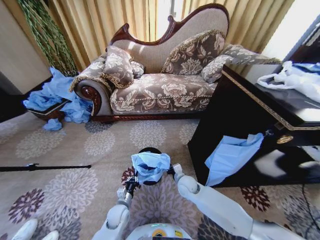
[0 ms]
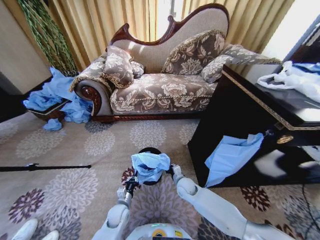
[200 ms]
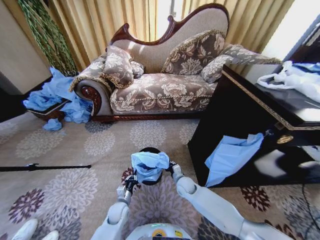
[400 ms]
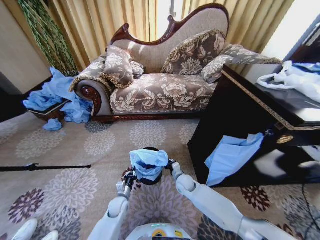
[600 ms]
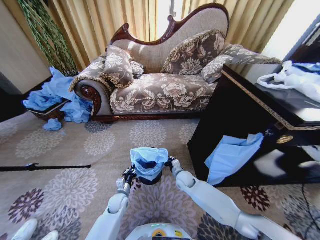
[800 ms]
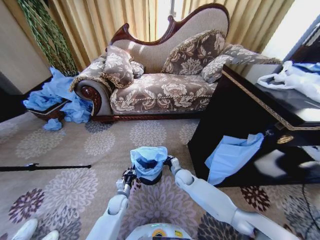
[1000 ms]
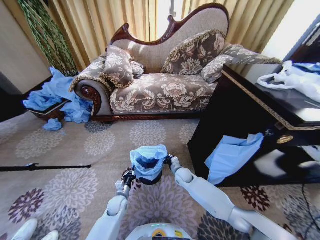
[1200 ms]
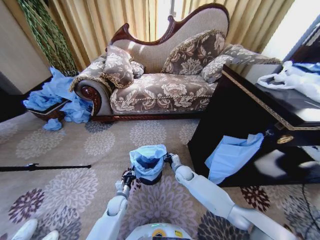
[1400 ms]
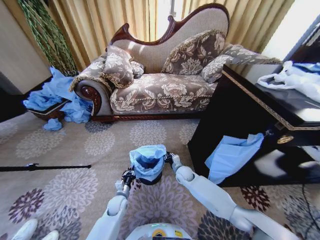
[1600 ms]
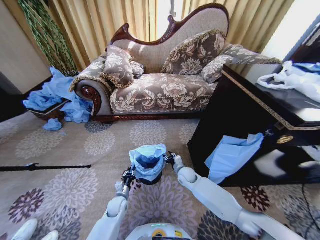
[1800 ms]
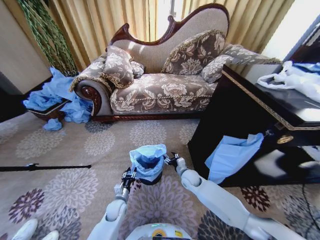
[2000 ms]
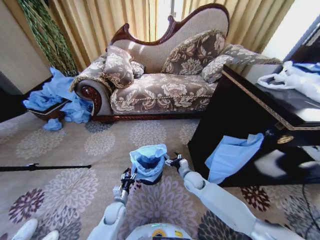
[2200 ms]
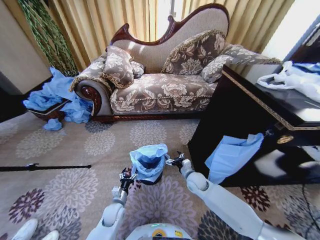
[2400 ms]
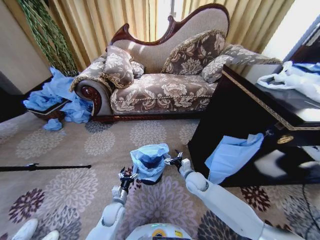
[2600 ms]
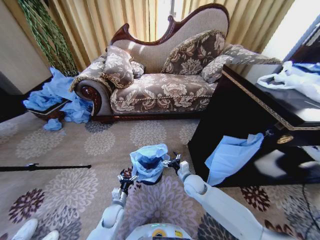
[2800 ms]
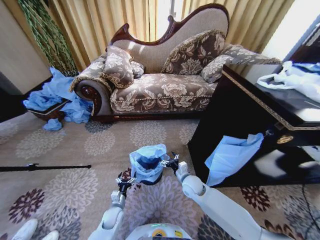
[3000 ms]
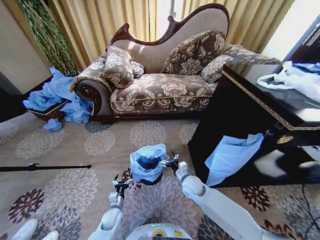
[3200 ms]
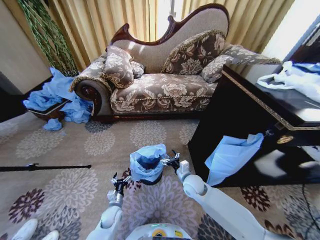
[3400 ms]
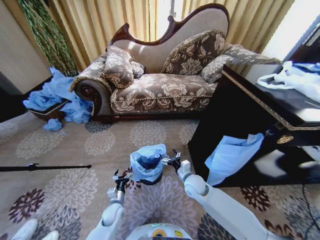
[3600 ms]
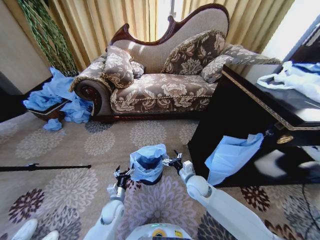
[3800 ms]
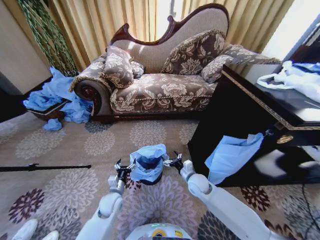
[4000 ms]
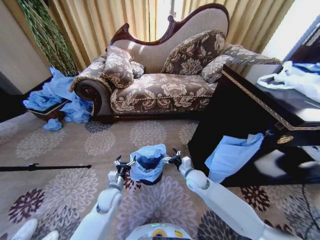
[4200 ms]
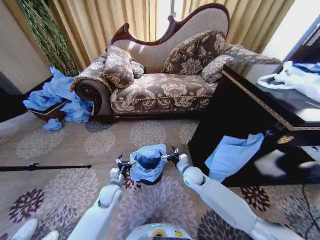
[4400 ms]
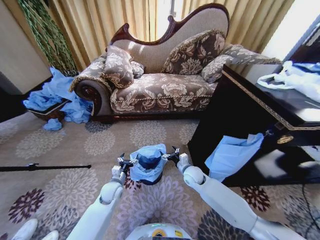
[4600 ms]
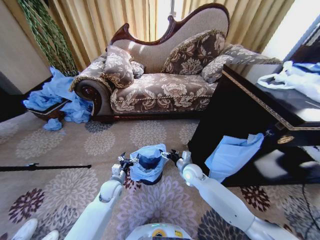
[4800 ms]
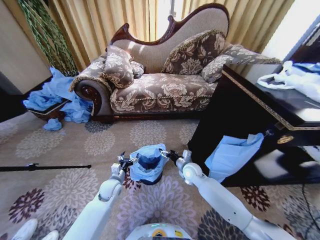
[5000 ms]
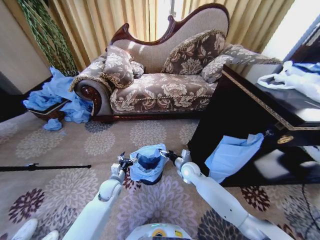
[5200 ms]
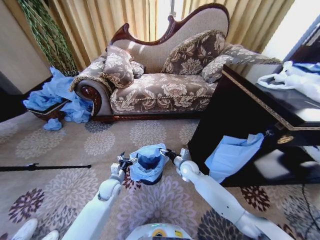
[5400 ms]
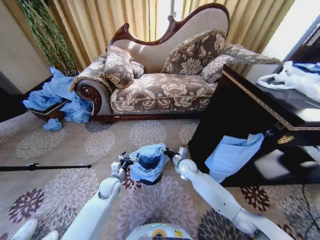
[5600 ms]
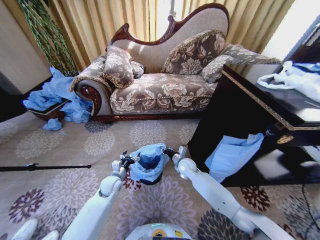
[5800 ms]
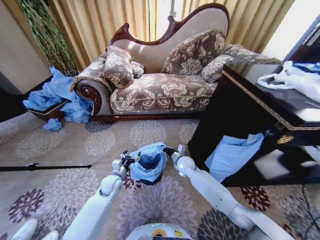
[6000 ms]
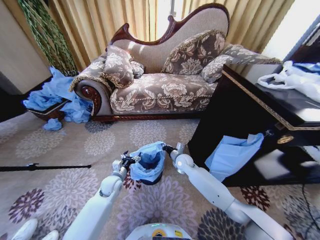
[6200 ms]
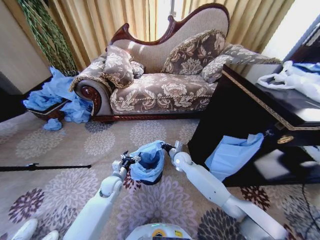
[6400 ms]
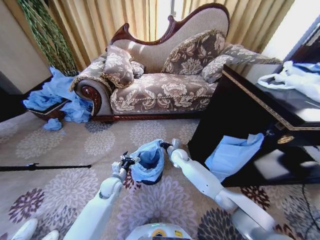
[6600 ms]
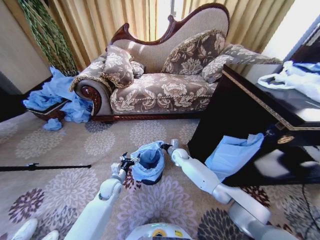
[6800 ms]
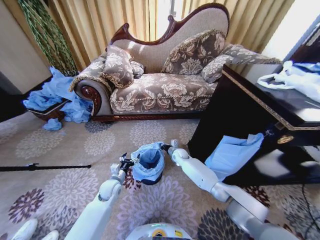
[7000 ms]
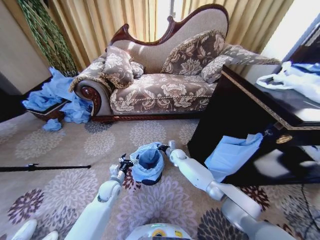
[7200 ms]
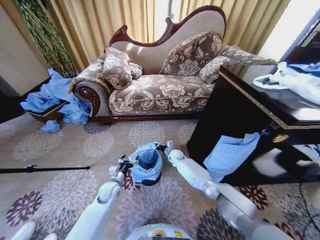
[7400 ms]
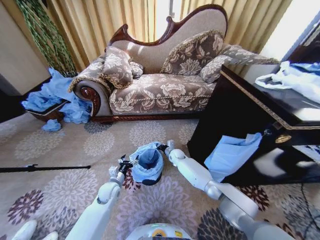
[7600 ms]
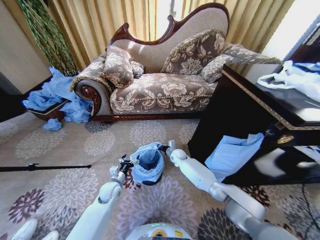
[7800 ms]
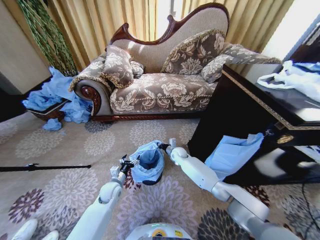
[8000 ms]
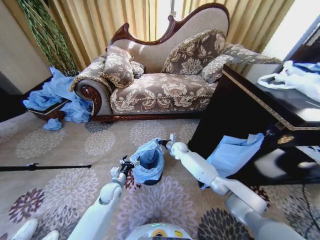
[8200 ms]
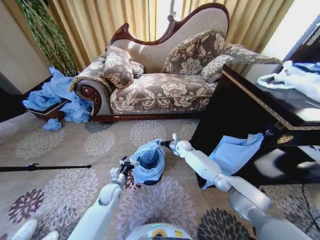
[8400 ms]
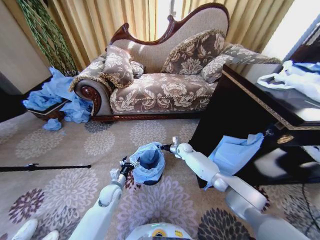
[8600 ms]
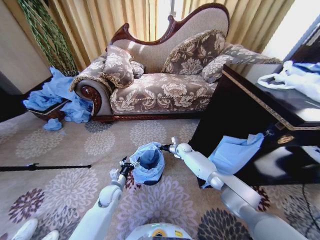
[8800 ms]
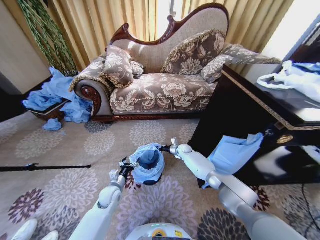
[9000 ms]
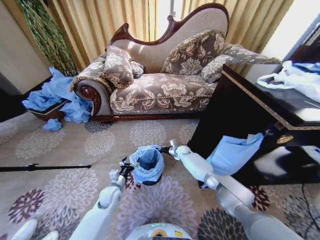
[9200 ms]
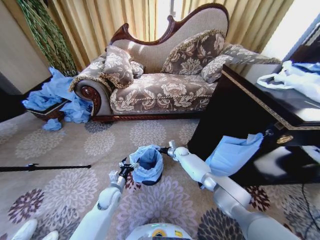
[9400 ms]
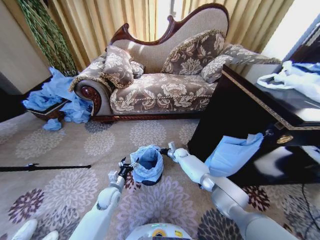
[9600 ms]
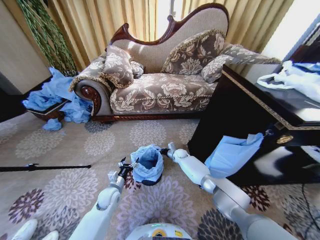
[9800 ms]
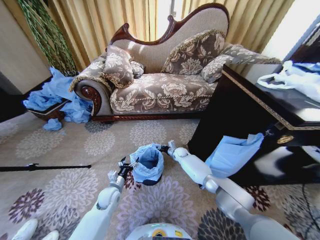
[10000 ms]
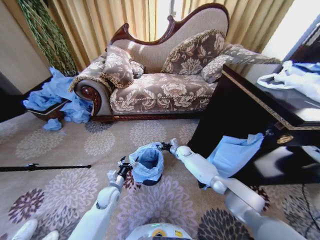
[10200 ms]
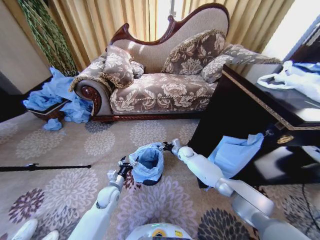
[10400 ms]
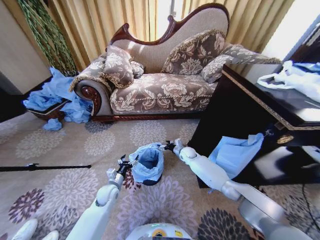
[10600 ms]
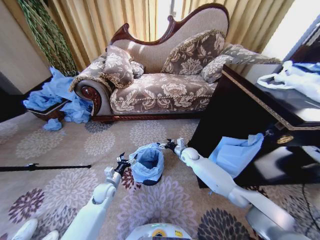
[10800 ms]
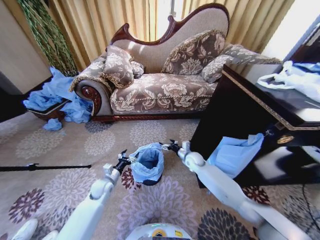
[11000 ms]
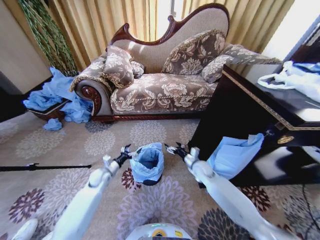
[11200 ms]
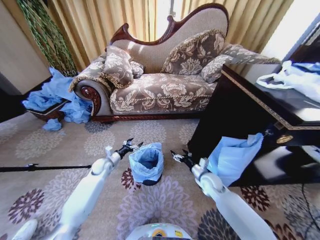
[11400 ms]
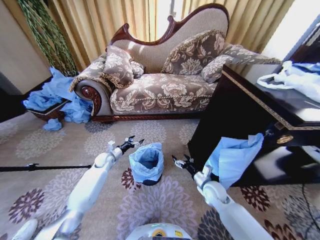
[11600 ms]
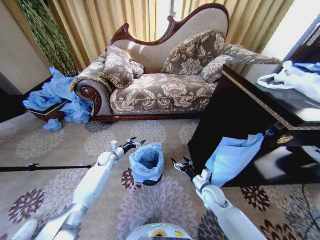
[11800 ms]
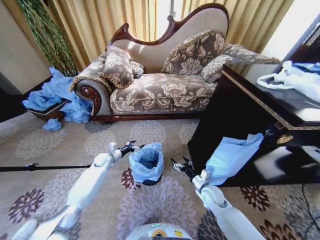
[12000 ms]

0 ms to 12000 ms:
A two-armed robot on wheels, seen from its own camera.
Task of the whole recording: Place a garbage bag over the trash bin.
0 ms to 1600 ms: The right gripper heads forward, covering approximately 5 cm. Meanwhile the left gripper ends up about 5 cm from where it was.
1600 ms to 3000 ms: The left gripper moves roughly 5 cm, and opens up. Meanwhile the right gripper heads backward, covering approximately 10 cm, and opens its fingers.
3000 ms to 4400 ms: The left gripper shifts approximately 15 cm upward and forward.
4400 ms to 6000 ms: The right gripper moves forward, roughly 5 cm, and closes up.
6000 ms to 7600 ms: The right gripper goes approximately 10 cm forward and downward.
7600 ms to 9000 ms: The right gripper travels to the right by approximately 5 cm.
9000 ms to 10400 ms: The right gripper opens.
10400 ms to 12000 ms: The left gripper heads forward and to the left, covering roughly 20 cm; the right gripper travels backward by roughly 25 cm, and opens up.

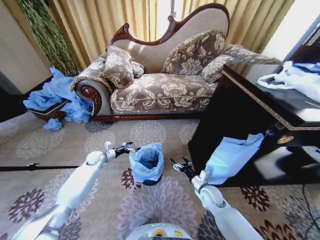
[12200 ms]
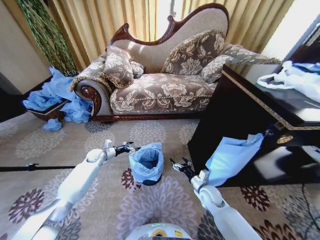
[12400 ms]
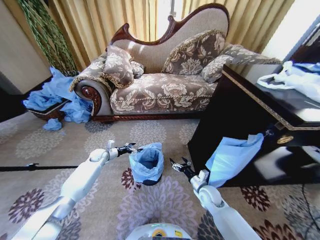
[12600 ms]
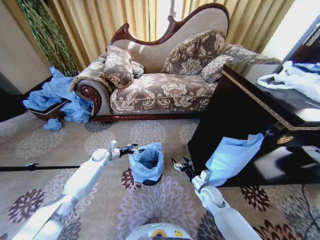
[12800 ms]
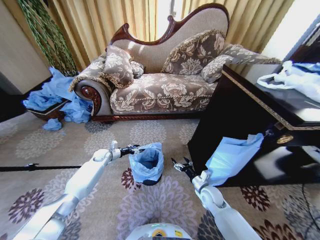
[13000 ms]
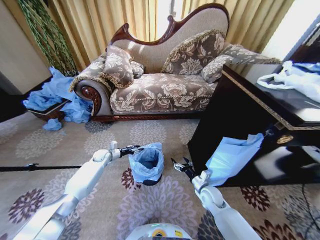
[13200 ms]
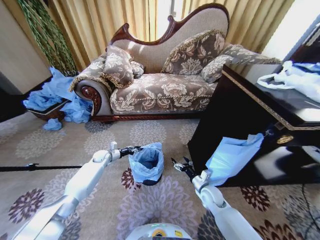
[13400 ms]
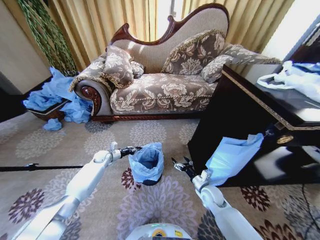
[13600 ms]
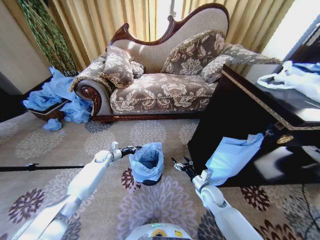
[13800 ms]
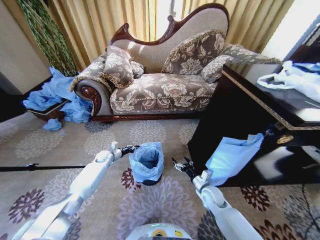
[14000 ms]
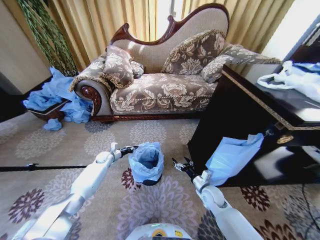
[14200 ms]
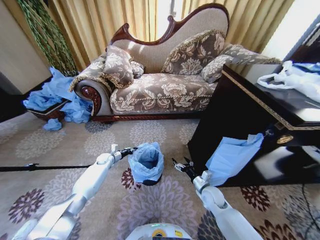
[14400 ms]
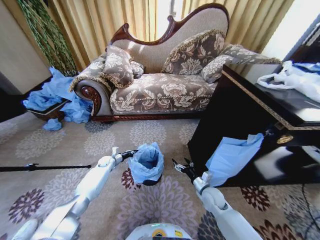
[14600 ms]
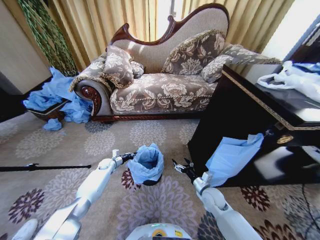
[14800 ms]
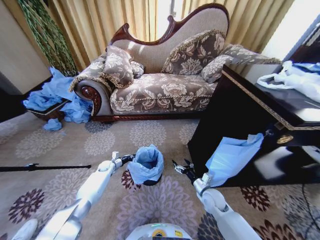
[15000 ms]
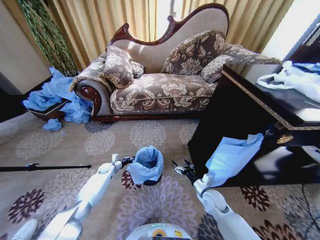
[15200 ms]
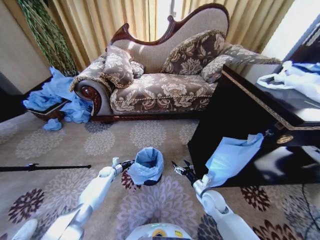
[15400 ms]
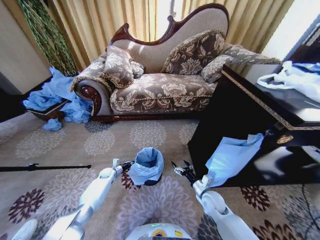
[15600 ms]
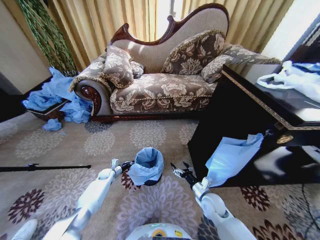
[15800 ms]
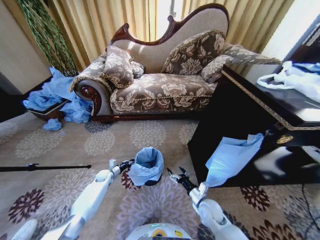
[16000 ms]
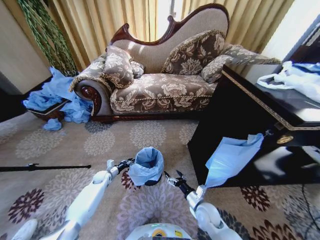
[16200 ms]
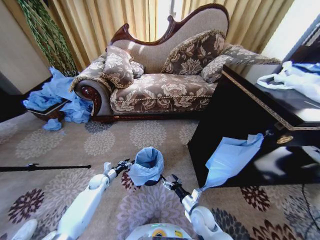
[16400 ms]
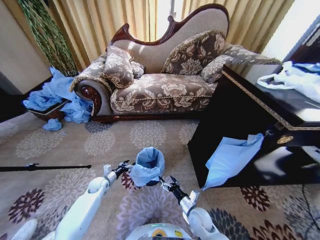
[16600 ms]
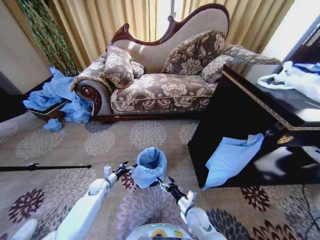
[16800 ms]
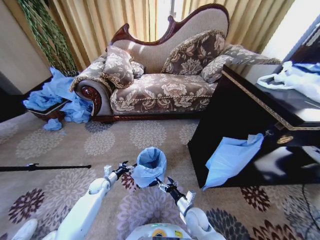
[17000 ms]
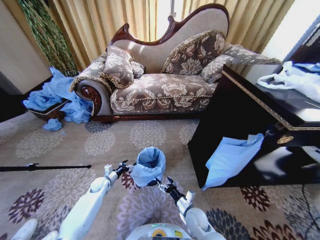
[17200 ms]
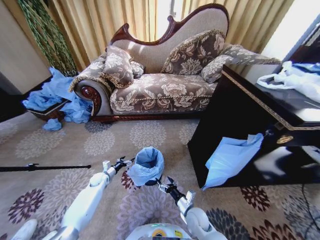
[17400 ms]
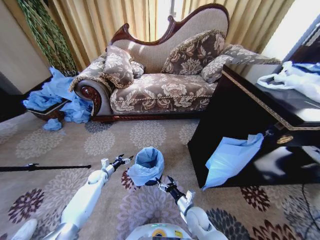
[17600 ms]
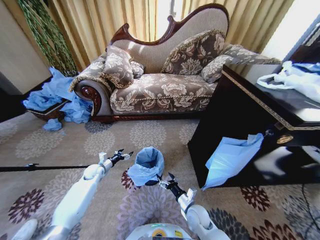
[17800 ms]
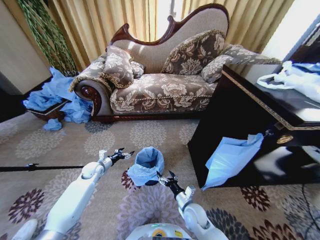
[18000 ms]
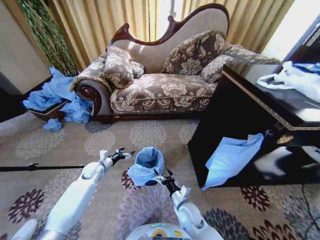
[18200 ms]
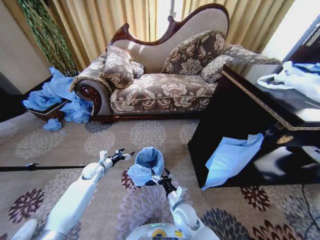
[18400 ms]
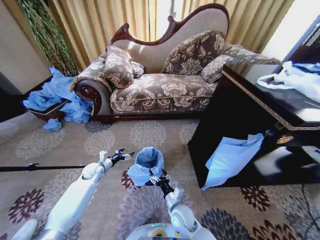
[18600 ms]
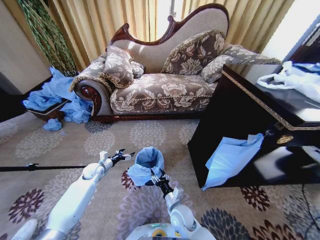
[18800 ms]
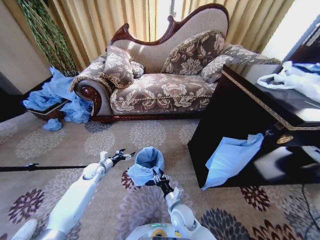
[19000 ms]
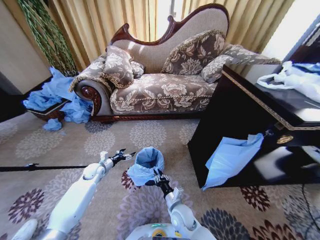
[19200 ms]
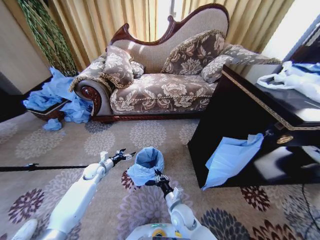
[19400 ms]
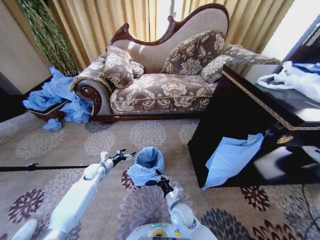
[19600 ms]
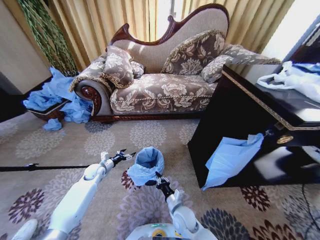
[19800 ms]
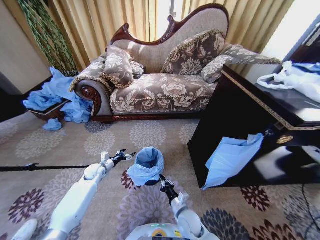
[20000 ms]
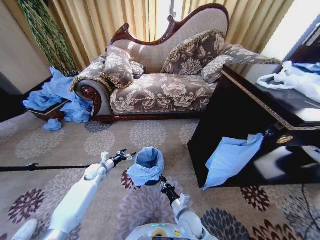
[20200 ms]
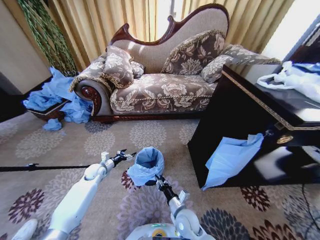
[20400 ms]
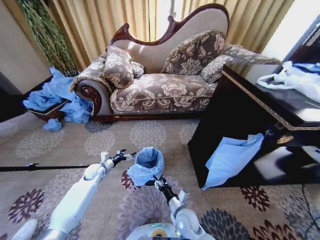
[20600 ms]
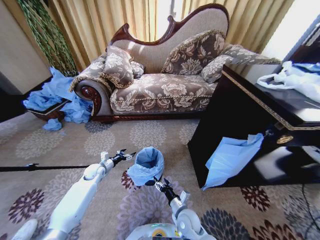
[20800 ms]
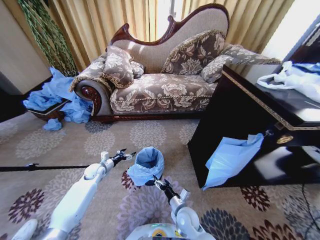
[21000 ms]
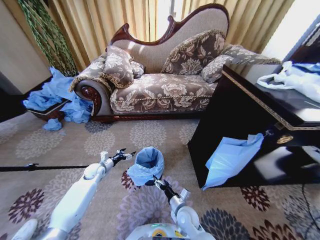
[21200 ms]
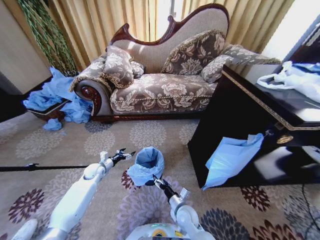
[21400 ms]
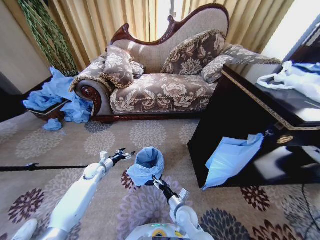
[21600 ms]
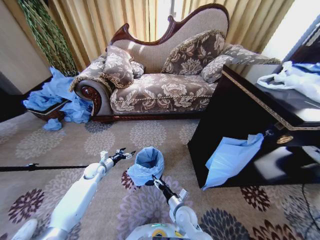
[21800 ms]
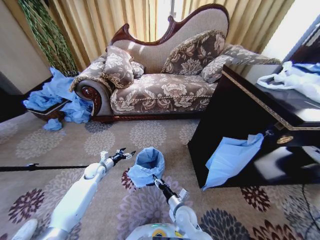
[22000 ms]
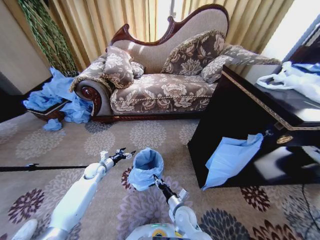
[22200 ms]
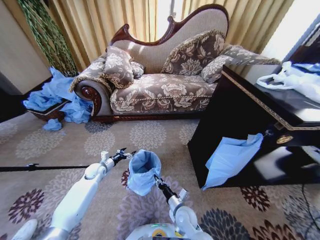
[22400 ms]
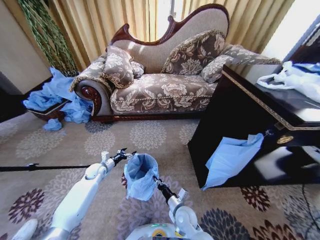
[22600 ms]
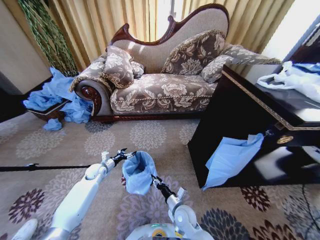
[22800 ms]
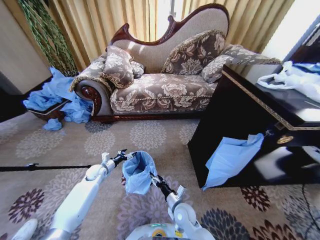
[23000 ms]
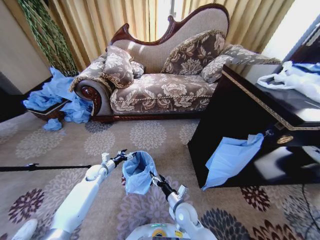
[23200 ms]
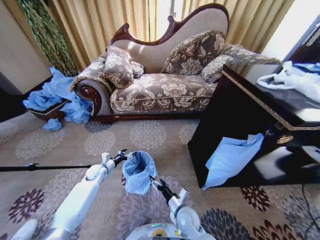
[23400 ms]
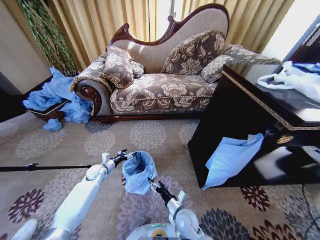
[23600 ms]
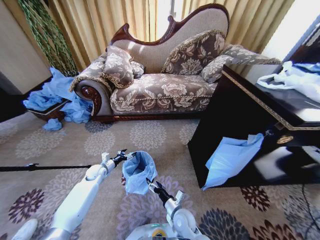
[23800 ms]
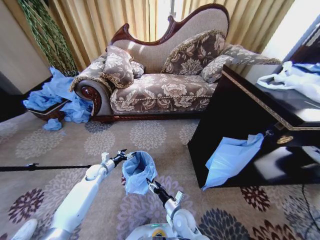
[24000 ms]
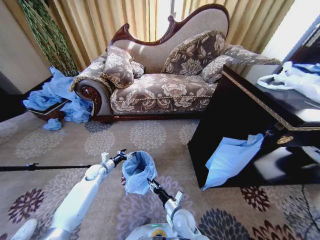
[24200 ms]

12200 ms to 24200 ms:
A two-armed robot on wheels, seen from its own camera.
Task of the whole recording: Place a garbage bag over the trash bin.
12200 ms to 13800 ms: The left gripper closes its fingers.
13800 ms to 15200 ms: The left gripper goes about 10 cm downward.
15200 ms to 16600 ms: The right gripper shifts some 10 cm to the left, backward and downward; the left gripper moves backward, about 10 cm, and opens up.
16600 ms to 18200 ms: The right gripper travels to the left by some 5 cm, while the left gripper heads upward, covering some 10 cm.
18200 ms to 19800 ms: The right gripper closes up.
19800 ms to 21200 ms: The right gripper opens.
21200 ms to 22600 ms: The right gripper closes.
22600 ms to 24200 ms: The right gripper opens, then closes once more.
